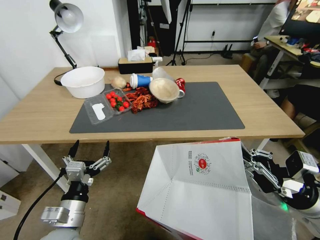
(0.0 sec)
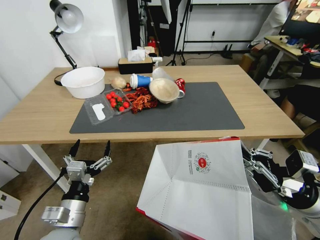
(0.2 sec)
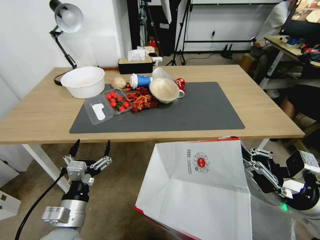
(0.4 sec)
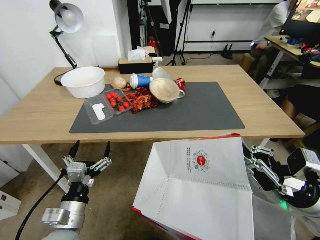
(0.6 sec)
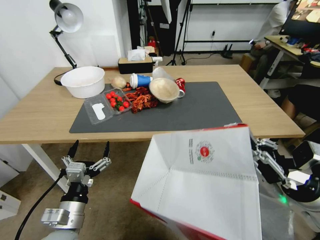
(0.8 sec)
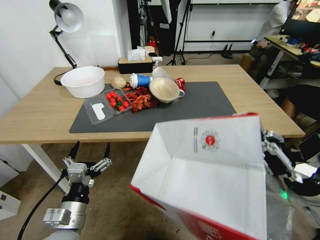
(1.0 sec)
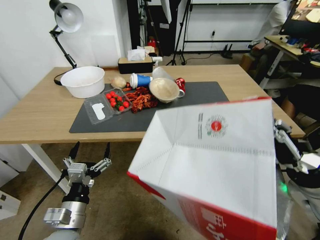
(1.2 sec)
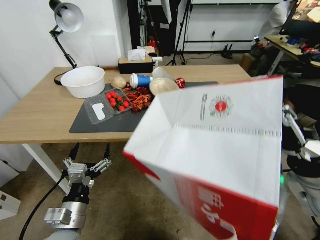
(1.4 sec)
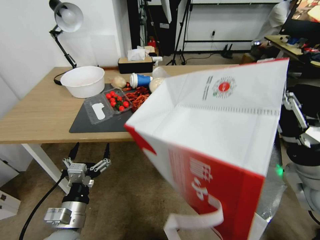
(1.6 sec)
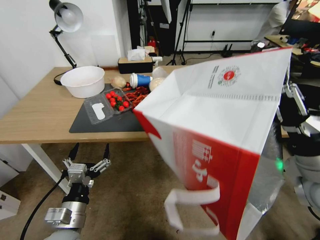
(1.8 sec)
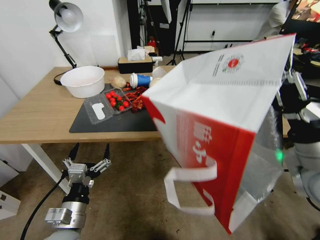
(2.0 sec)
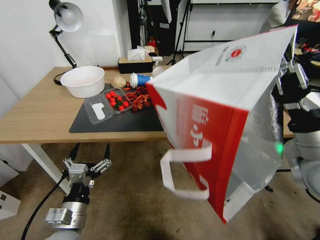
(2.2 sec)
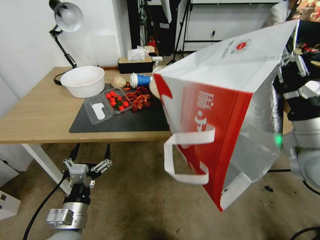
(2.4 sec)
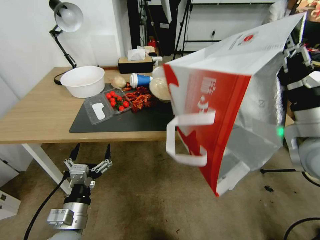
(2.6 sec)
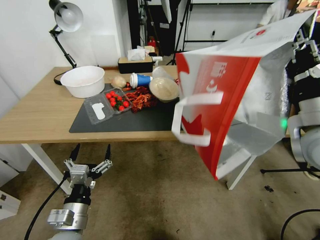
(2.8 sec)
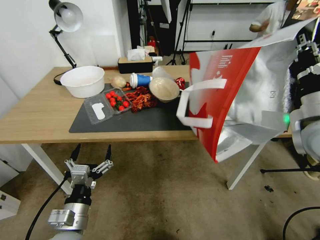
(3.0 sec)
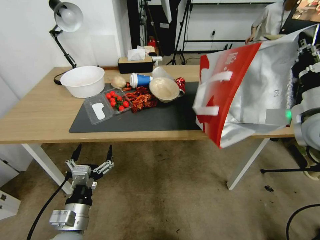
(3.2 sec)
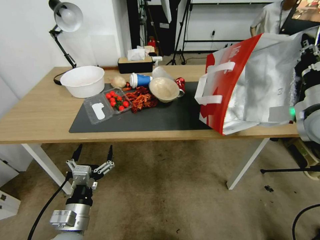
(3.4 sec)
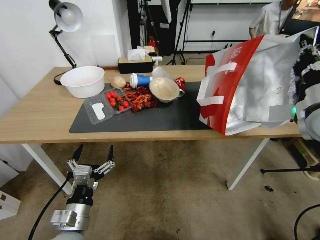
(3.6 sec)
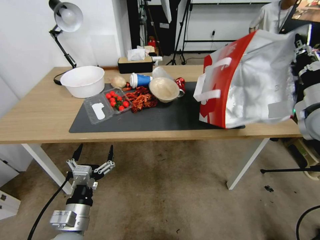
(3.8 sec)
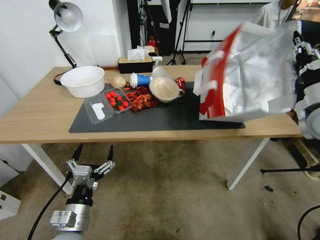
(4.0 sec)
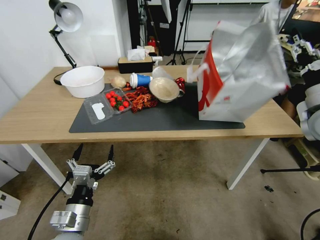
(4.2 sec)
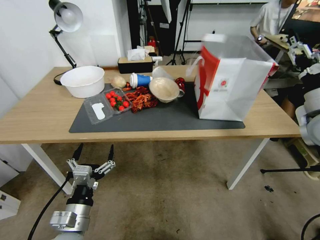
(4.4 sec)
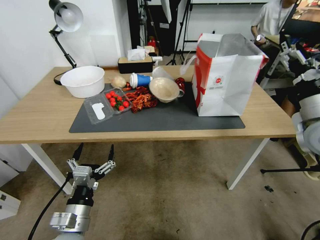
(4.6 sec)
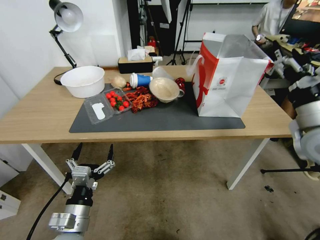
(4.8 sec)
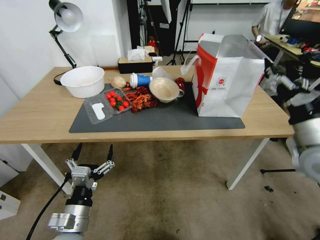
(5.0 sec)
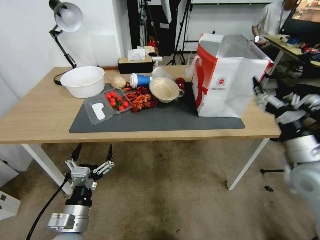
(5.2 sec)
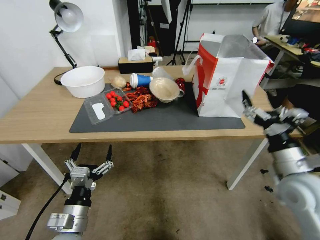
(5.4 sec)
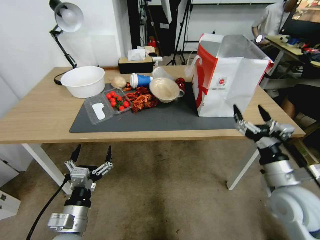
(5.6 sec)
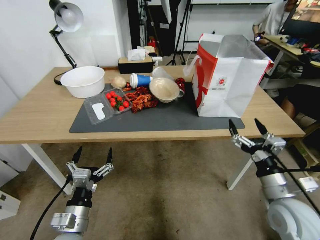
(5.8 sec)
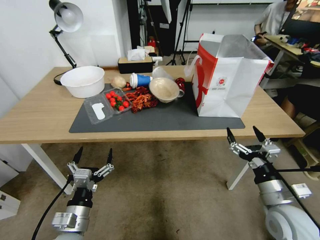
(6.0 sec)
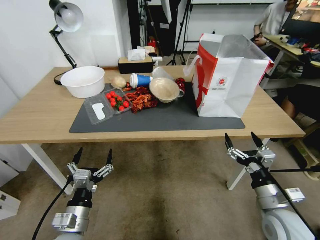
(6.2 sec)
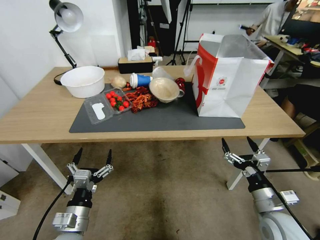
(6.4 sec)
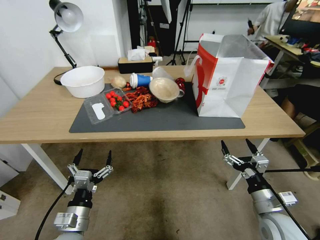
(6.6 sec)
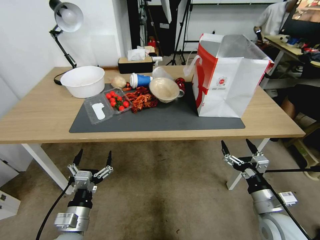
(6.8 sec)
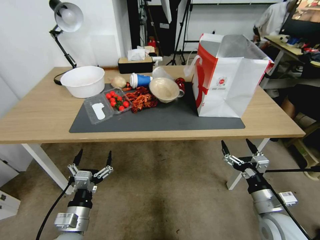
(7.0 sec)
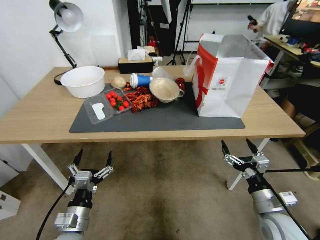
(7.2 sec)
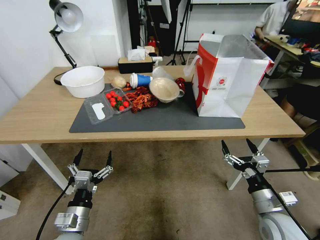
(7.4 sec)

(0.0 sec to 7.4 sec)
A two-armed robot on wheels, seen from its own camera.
Task of the whole recording: Pick up the food delivery bag from the floor and place it on the table.
0.0 sec - 1.4 sec: The right gripper shifts about 5 cm upward.
1.4 sec - 3.0 sec: The right gripper travels forward and upward by some 10 cm.
3.0 sec - 4.4 sec: The right gripper changes place by about 5 cm, and opens up.
4.4 sec - 6.0 sec: The right gripper moves downward, backward and to the left, some 25 cm.
6.0 sec - 7.4 sec: The grippers stay close to where they were, moving slightly.
